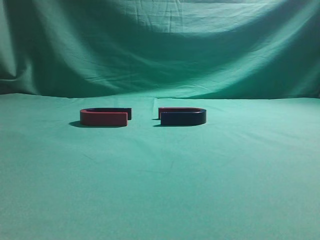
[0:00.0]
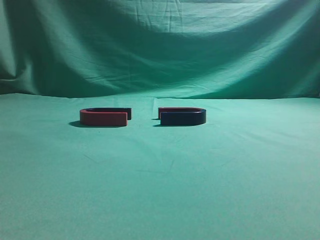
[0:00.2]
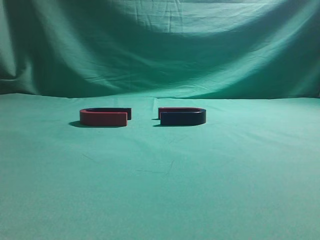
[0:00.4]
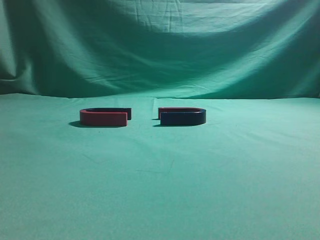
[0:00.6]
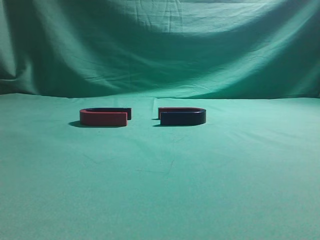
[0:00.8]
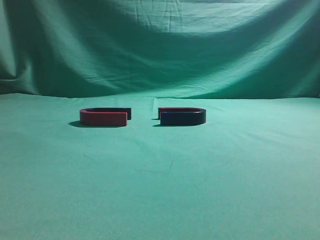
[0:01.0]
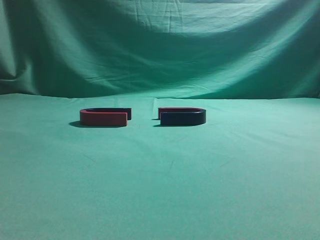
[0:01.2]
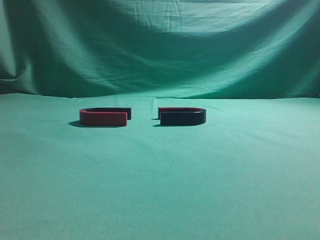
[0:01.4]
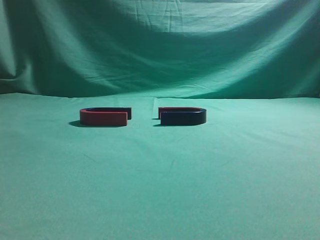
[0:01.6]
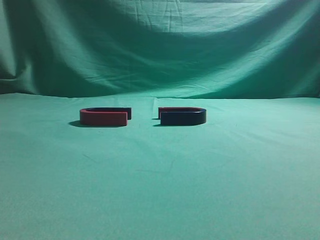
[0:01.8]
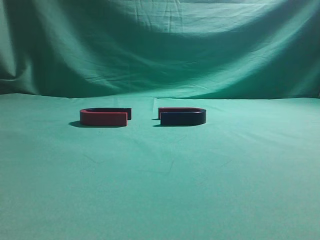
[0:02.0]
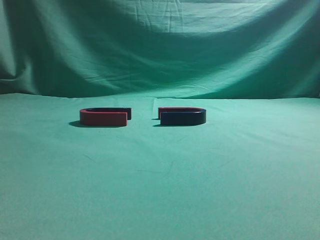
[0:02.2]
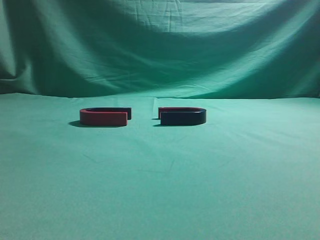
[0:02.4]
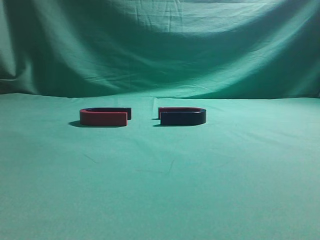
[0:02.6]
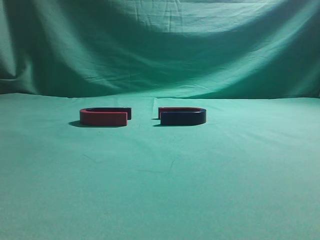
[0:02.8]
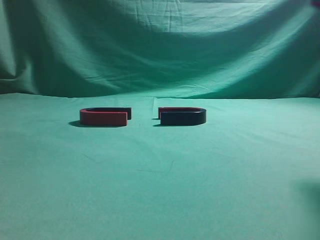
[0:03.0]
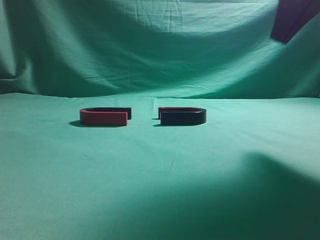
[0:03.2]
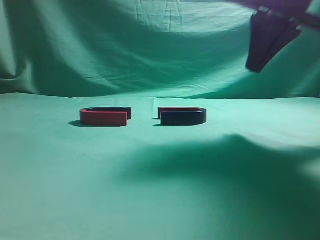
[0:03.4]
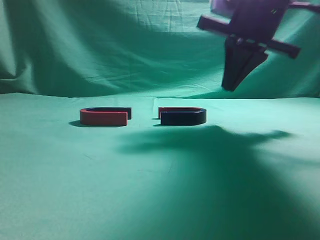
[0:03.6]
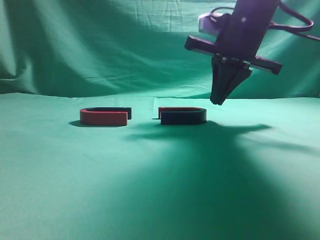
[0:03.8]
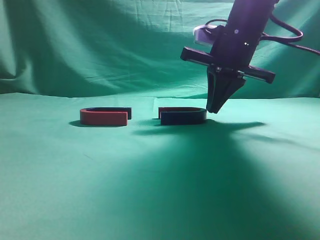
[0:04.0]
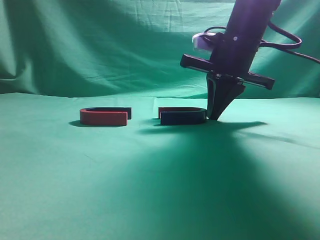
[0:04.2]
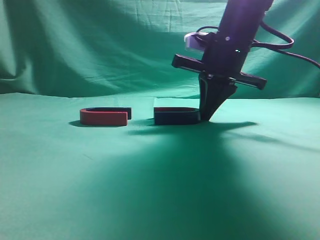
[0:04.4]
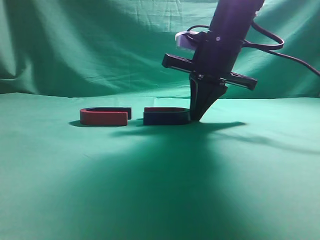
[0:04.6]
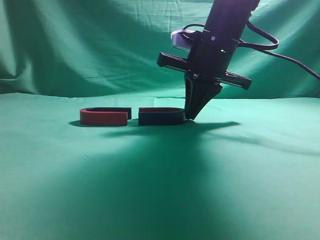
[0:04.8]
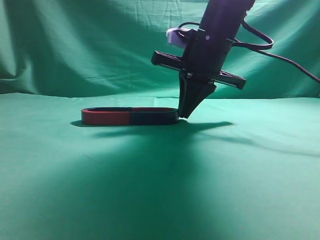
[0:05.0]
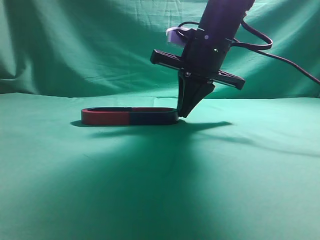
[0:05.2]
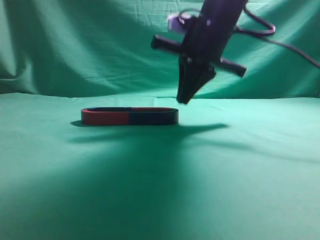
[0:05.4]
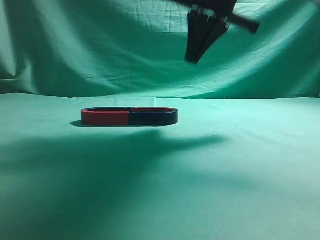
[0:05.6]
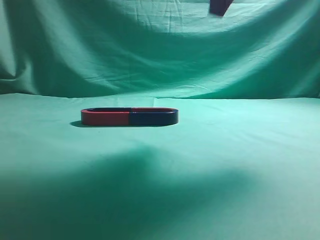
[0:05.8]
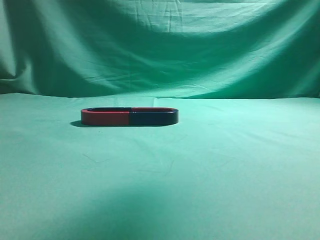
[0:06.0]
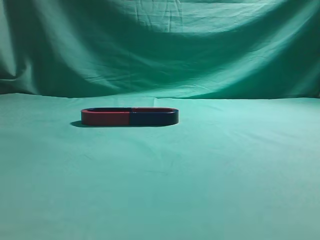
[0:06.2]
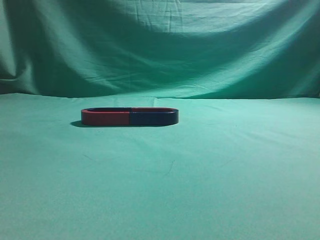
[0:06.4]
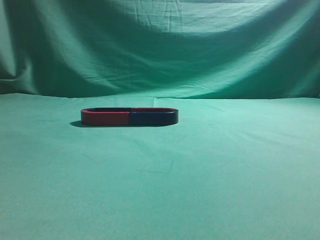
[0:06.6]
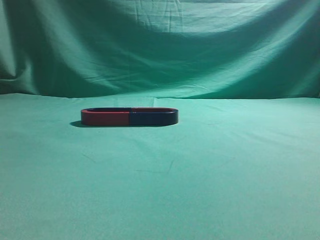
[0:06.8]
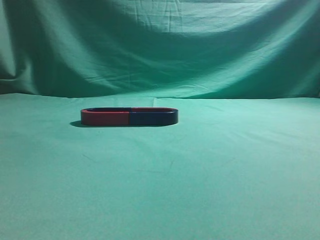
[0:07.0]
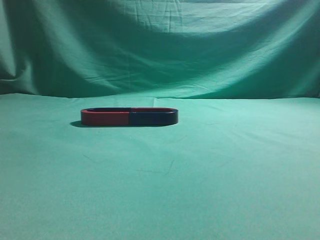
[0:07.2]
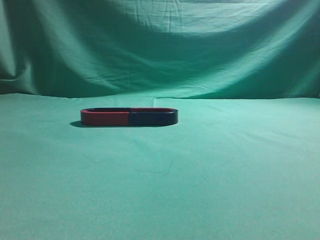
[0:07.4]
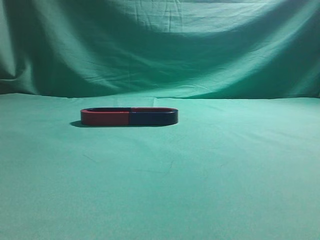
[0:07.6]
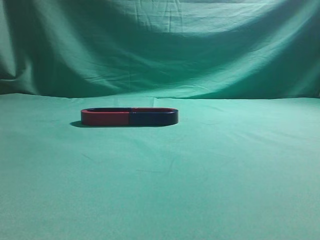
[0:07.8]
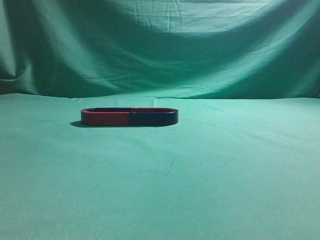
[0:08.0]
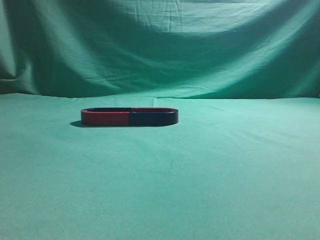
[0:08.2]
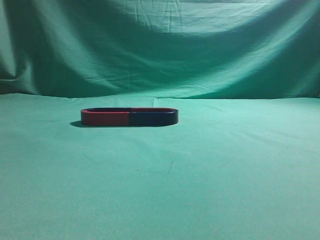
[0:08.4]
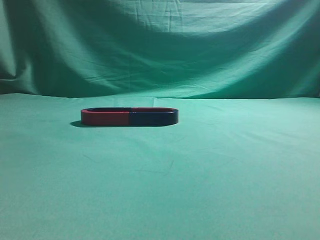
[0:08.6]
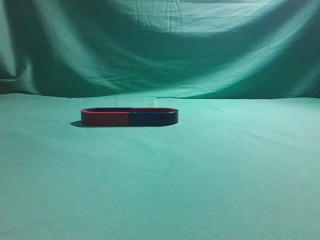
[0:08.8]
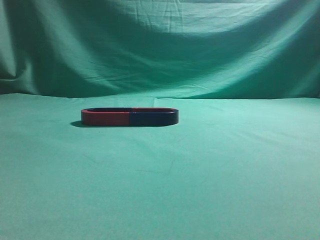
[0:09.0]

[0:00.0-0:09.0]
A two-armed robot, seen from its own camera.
Task of the whole recording: push the magnet on the table from its original position to another position.
Step, 0:00.0 to 0:05.2: Push the magnet on the right to connect the magnet on the left.
0:01.6 to 0:03.0: The right gripper is displaced forward by about 25 cm.
0:03.0 to 0:04.4: The right gripper is displaced forward, downward and to the left by some 20 cm.
0:04.4 to 0:06.0: The right gripper heads upward and backward, covering roughly 25 cm.
0:06.0 to 0:07.6: The right gripper travels backward, to the right and downward by about 25 cm.
